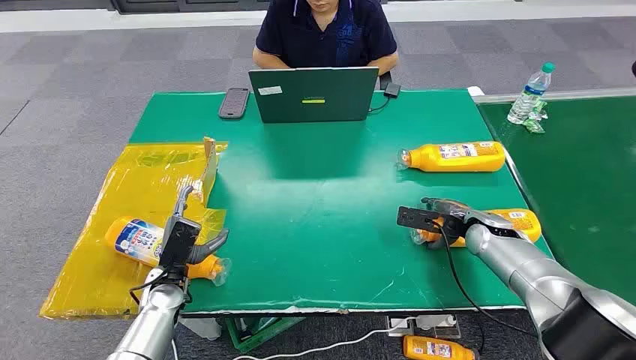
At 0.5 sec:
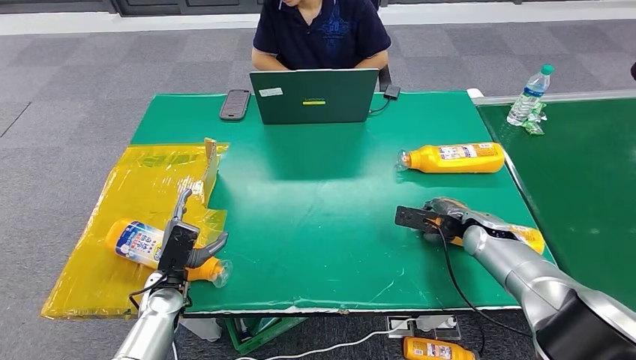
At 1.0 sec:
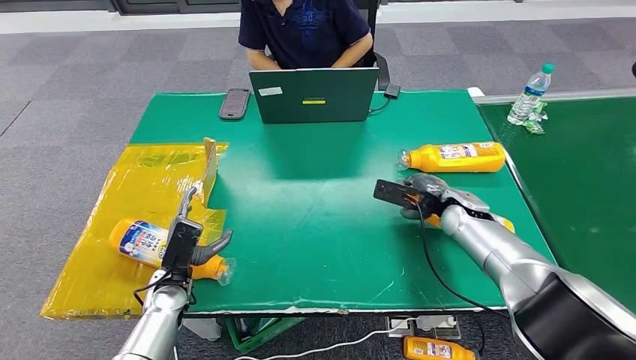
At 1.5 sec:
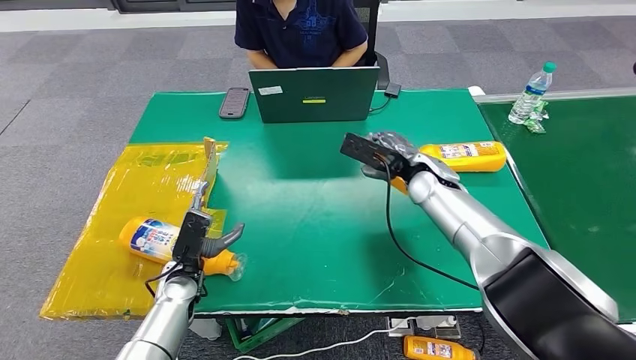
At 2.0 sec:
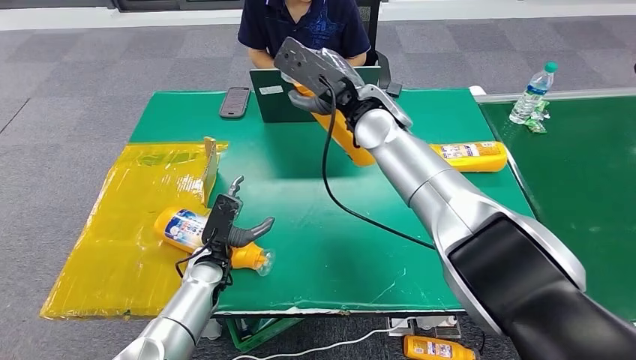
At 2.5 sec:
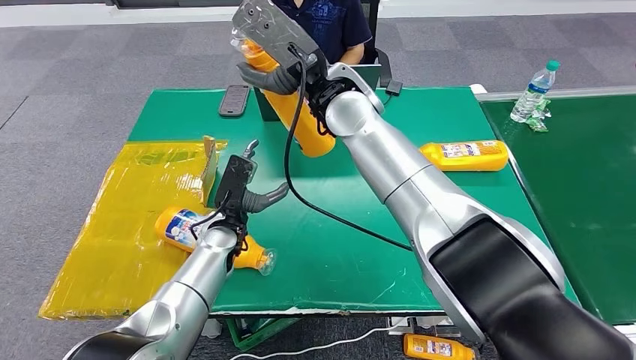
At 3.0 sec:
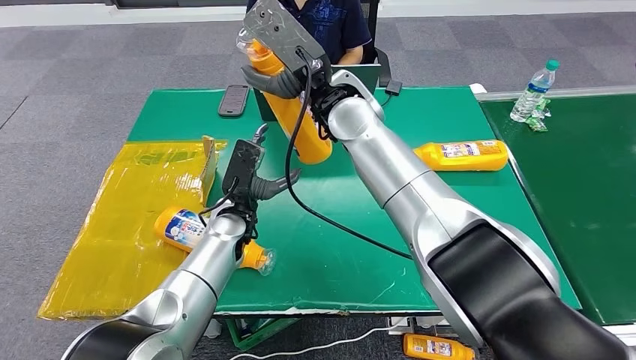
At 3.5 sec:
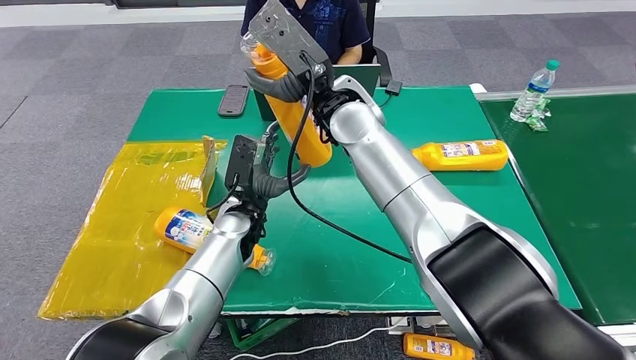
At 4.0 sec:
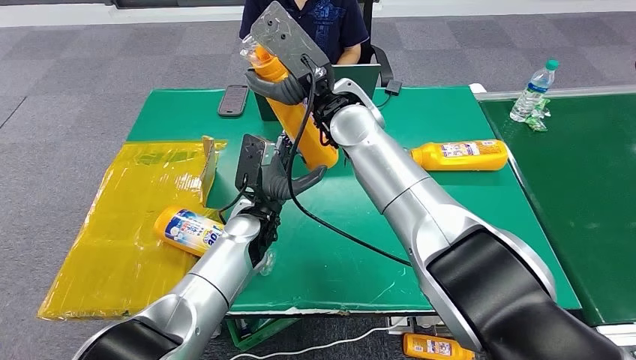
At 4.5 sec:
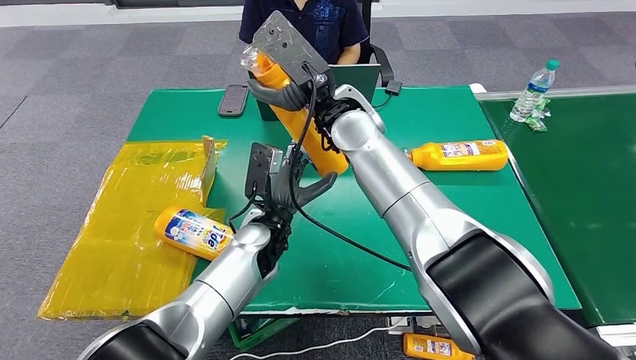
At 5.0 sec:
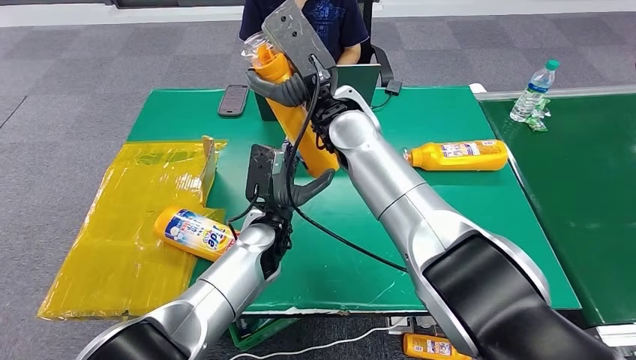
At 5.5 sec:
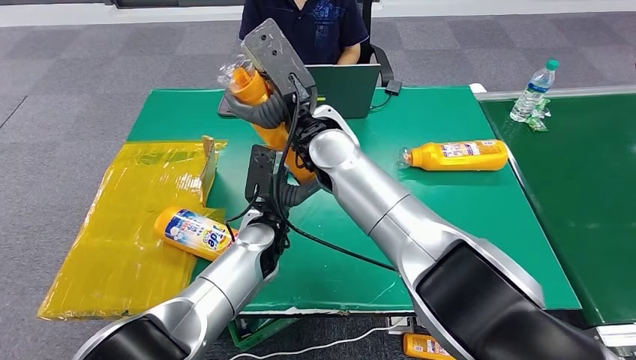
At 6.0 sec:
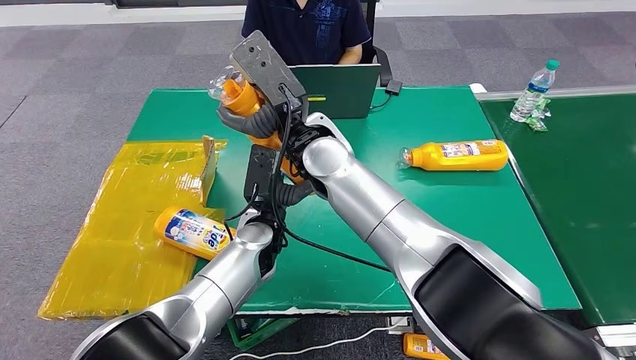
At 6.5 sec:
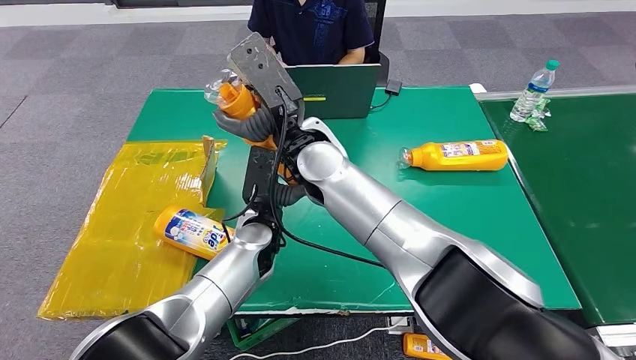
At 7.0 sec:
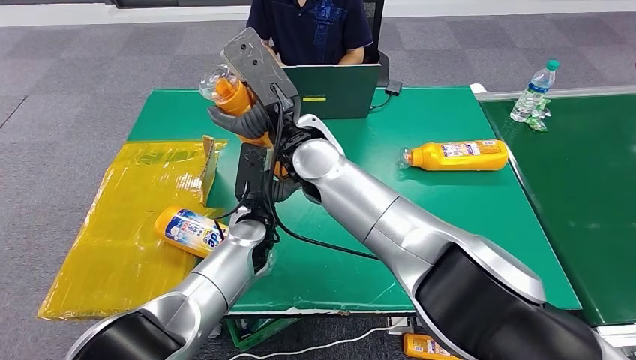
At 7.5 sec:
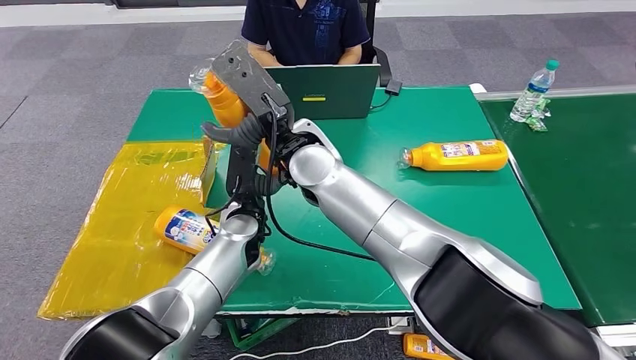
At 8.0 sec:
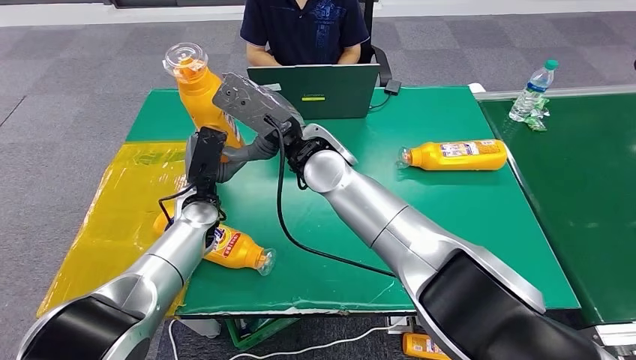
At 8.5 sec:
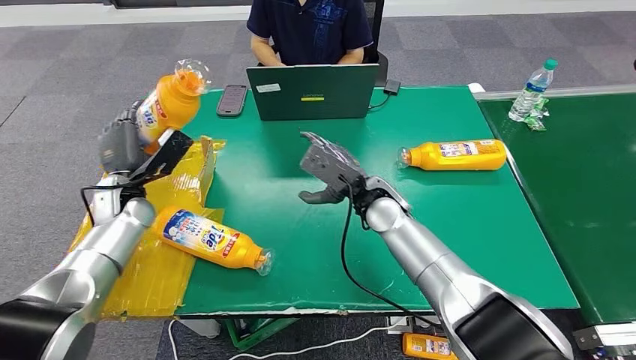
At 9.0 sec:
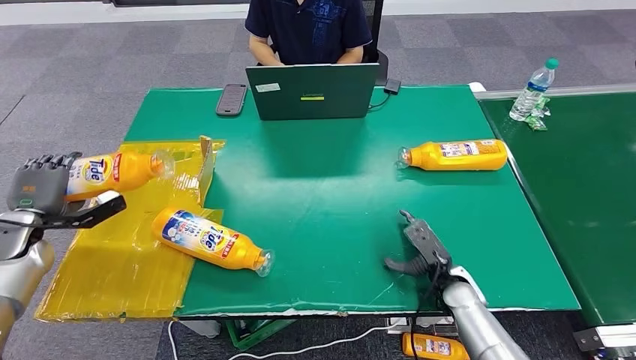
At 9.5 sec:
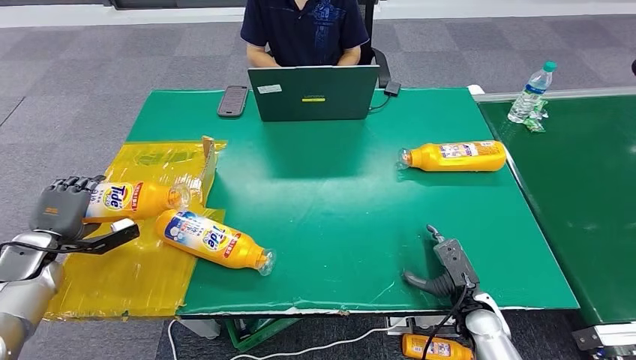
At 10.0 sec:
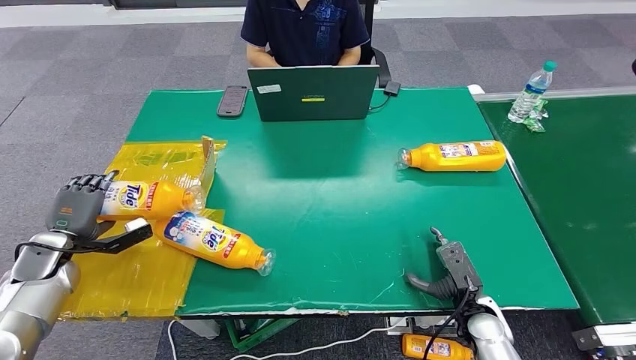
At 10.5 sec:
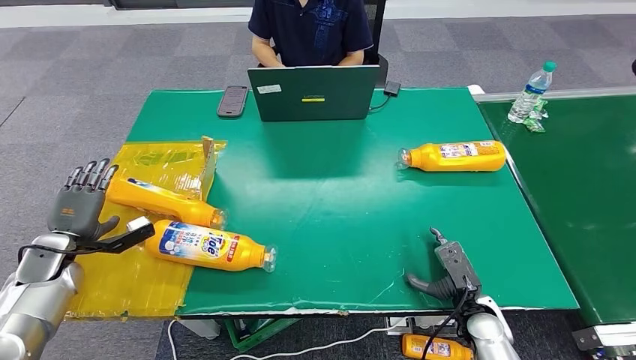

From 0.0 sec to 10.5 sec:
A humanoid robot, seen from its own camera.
Step, from 0.0 sec to 1.5 sec: Pick up the bottle from the table.
Step, from 2.0 sec to 10.5 sec: Turn the bottle to the front side.

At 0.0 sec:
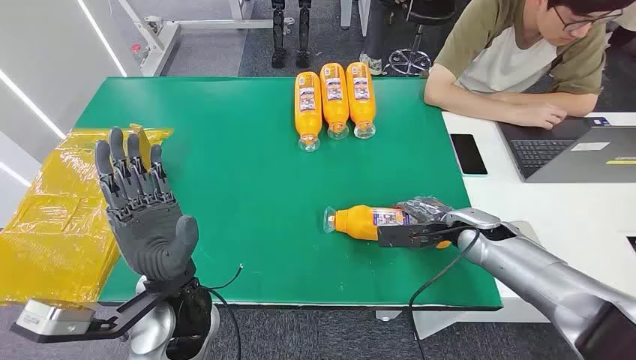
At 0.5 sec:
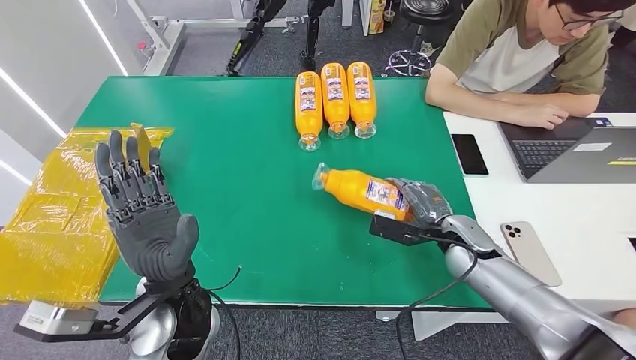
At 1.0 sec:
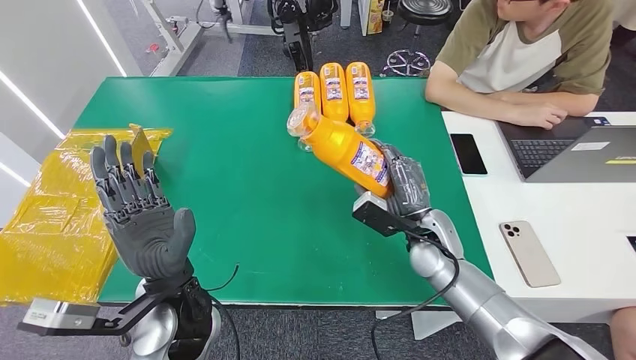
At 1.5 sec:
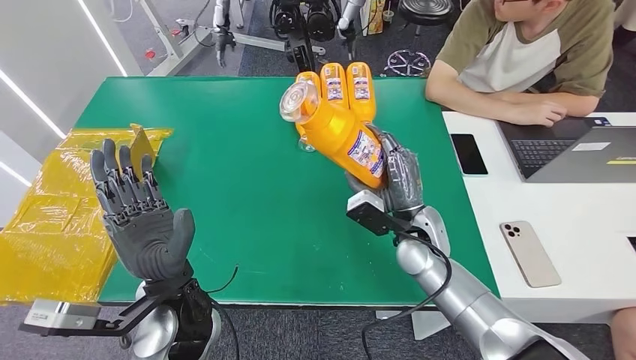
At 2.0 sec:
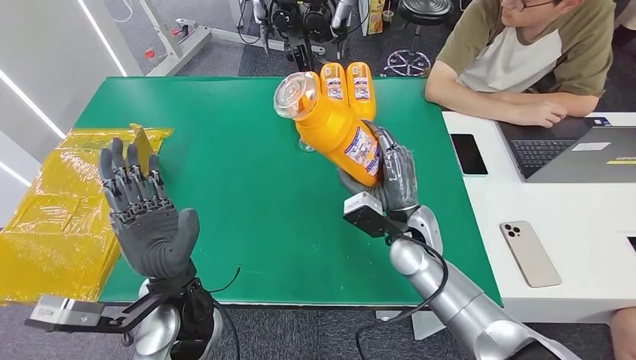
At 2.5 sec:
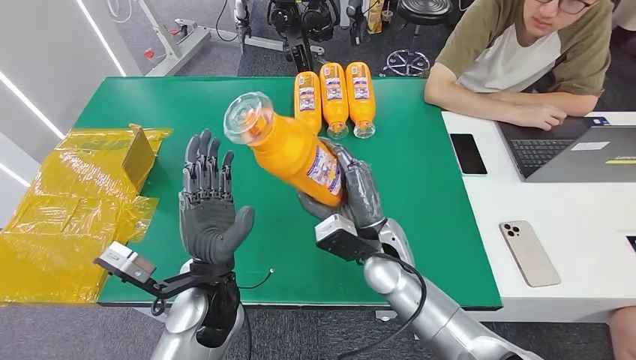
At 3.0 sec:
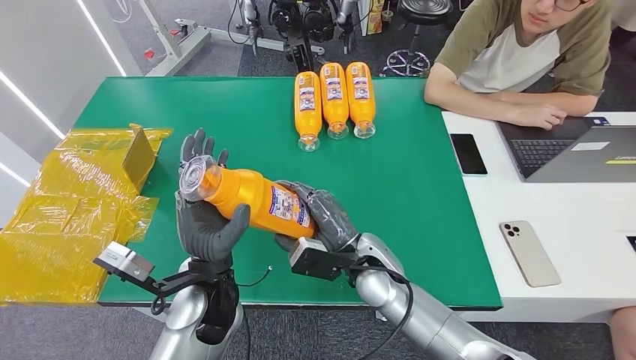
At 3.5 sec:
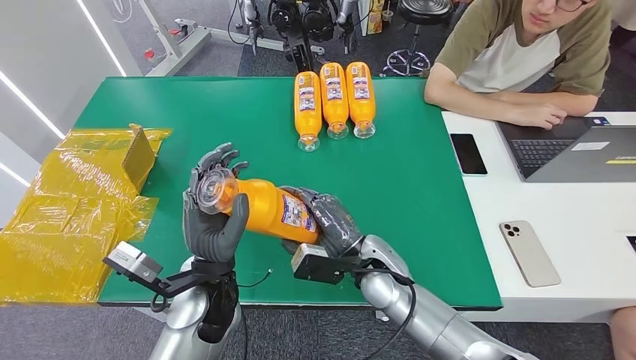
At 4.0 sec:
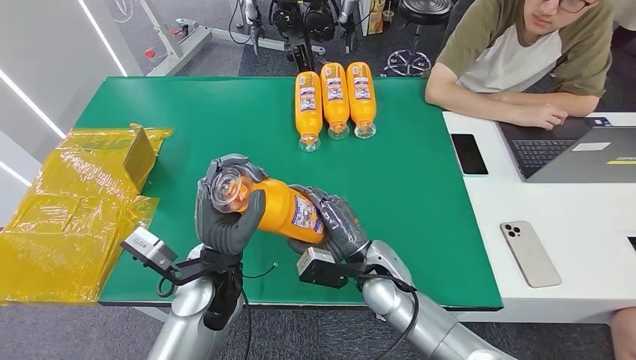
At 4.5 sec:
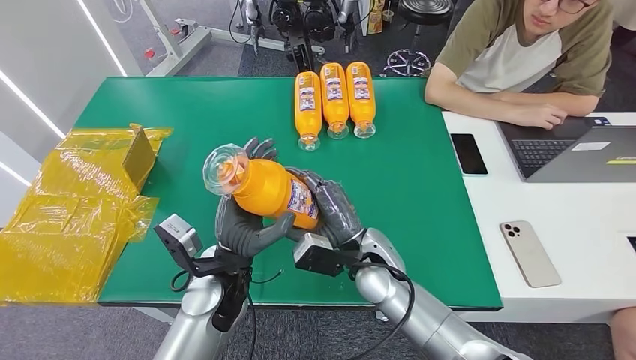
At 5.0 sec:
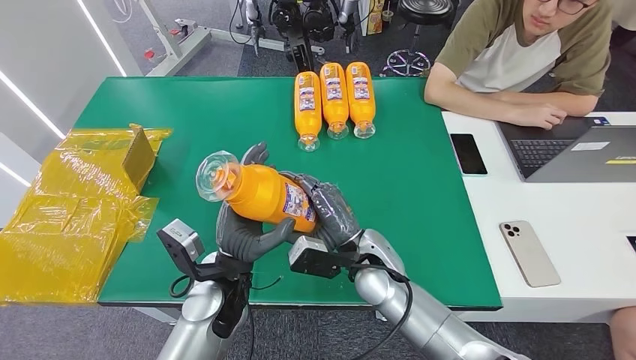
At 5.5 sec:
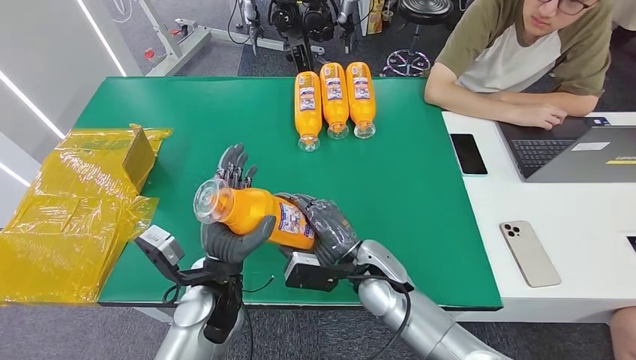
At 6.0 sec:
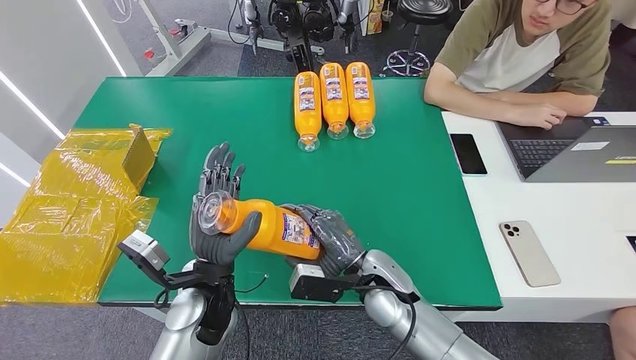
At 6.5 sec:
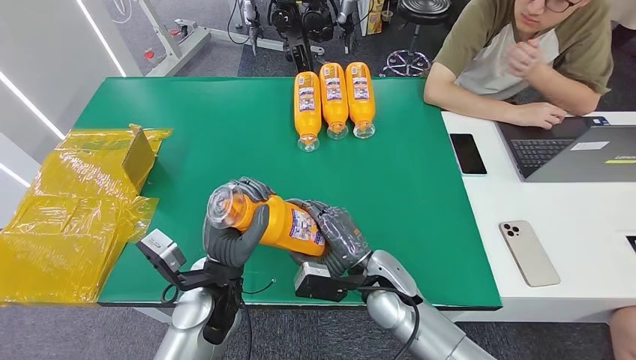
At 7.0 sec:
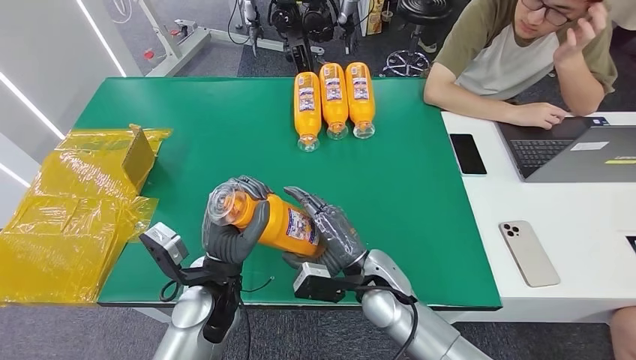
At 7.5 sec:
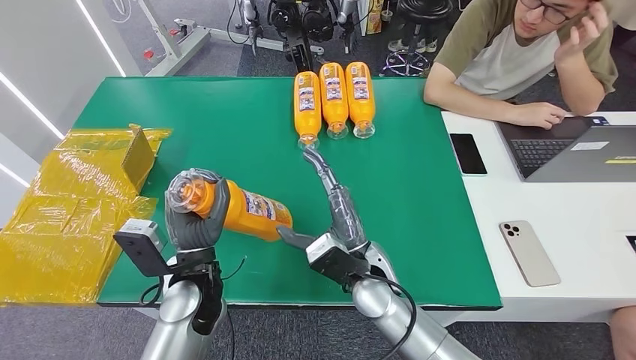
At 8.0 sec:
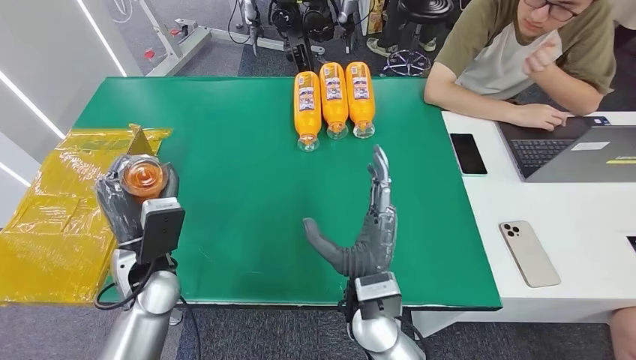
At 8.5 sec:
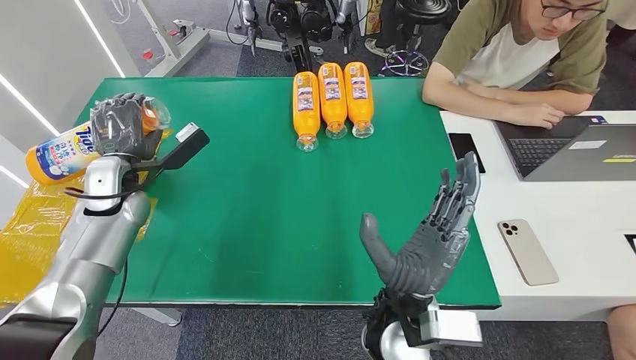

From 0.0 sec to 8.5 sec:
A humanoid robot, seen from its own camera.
Step, from 0.0 sec to 3.5 sec: Pick up the bottle from the table.
Step, from 4.0 sec to 8.5 sec: Turn the bottle to the front side.
From 4.0 sec to 6.5 sec: There are only small adjustments of the hands.
